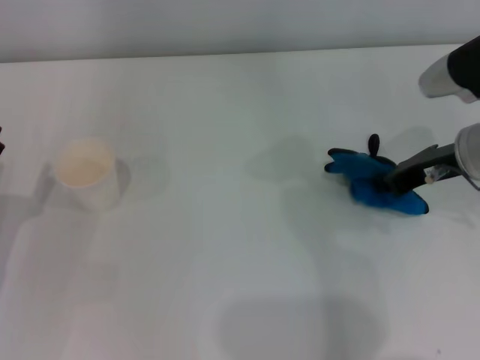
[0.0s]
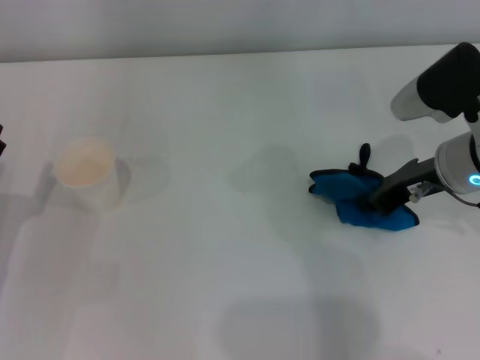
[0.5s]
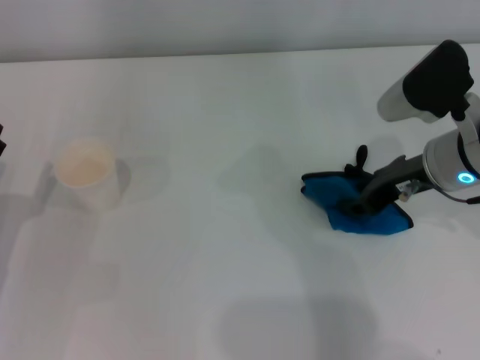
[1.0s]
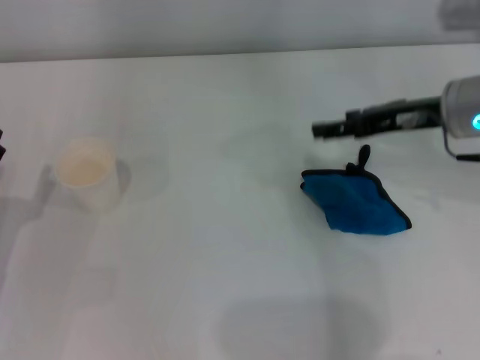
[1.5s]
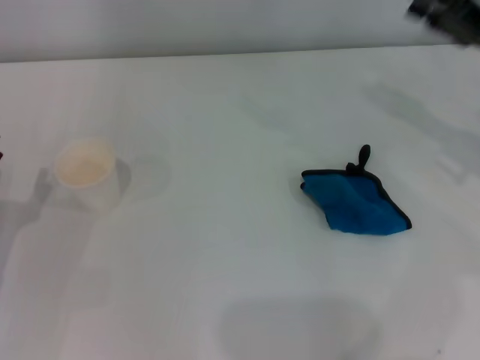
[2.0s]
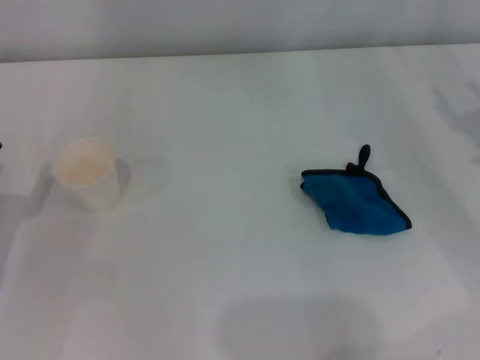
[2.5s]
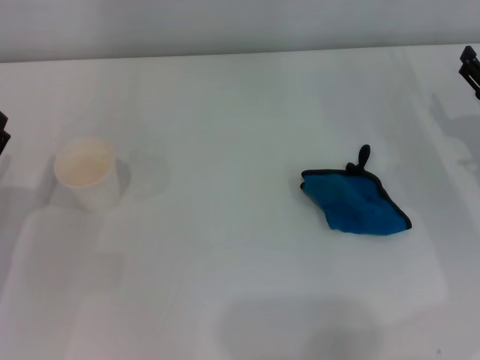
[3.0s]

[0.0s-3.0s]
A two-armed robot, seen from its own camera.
Step, 0.5s to 1.0s: Place the rag on the table with the right gripper.
0.0s to 1.5s: The right gripper opens.
1.5s to 3.0s: The right gripper travels downward and to the right by about 15 cm.
